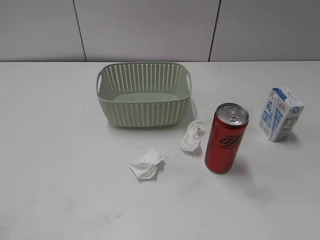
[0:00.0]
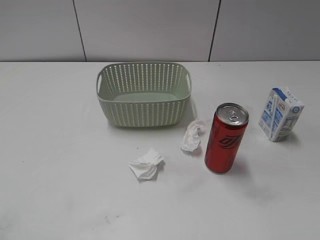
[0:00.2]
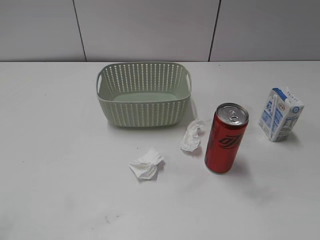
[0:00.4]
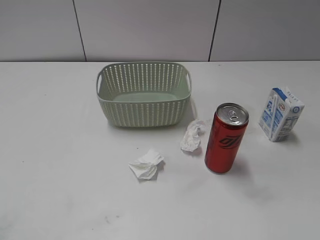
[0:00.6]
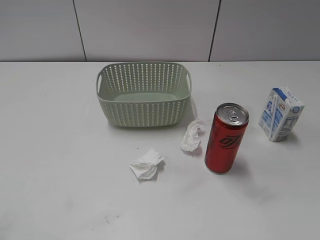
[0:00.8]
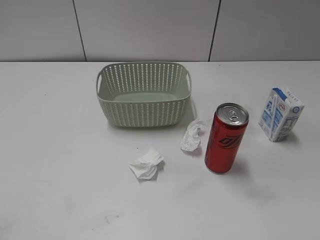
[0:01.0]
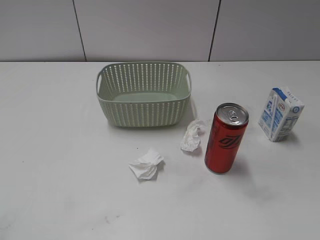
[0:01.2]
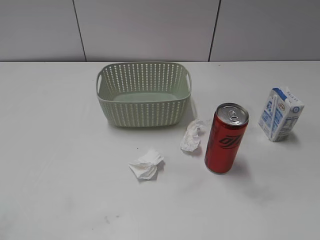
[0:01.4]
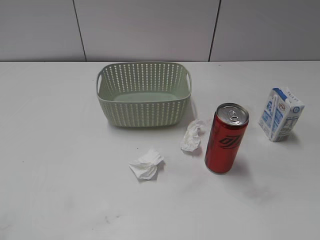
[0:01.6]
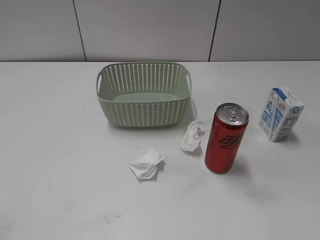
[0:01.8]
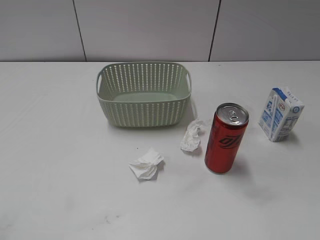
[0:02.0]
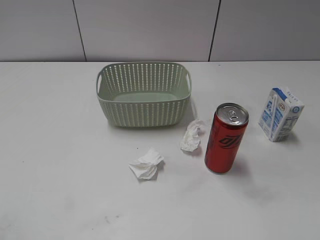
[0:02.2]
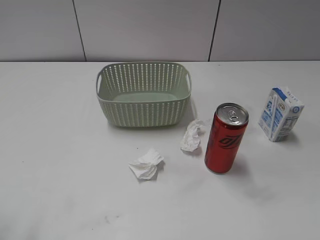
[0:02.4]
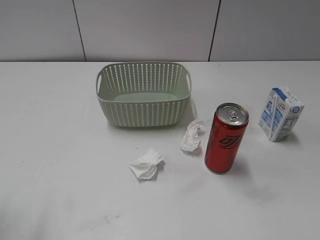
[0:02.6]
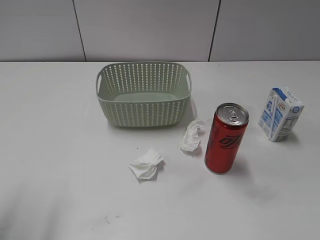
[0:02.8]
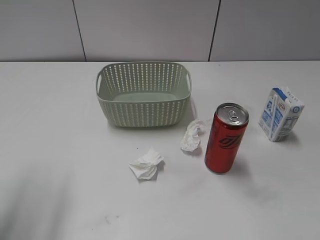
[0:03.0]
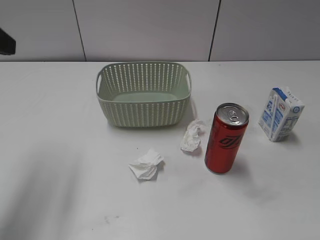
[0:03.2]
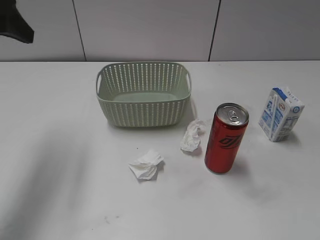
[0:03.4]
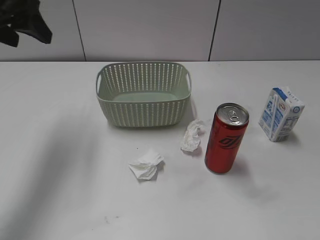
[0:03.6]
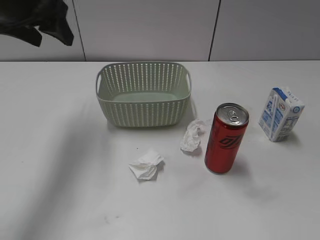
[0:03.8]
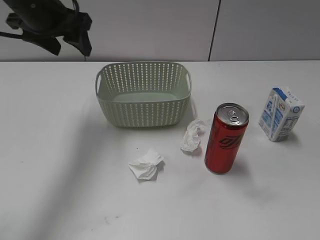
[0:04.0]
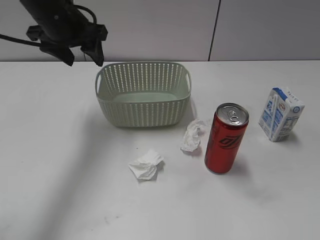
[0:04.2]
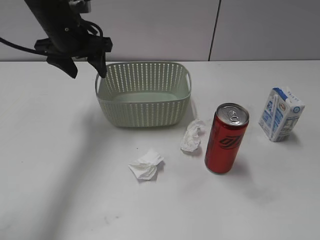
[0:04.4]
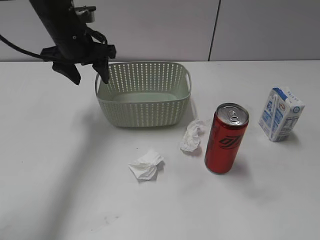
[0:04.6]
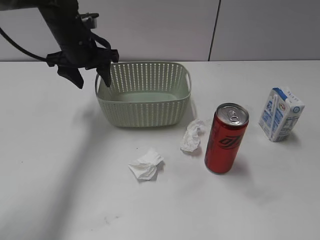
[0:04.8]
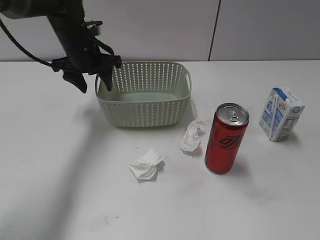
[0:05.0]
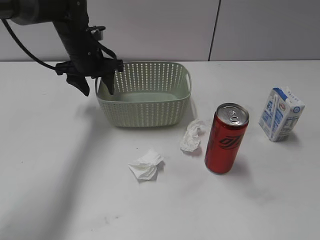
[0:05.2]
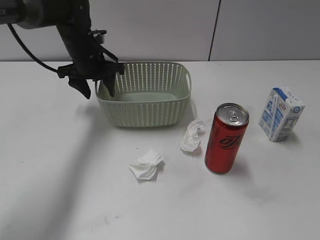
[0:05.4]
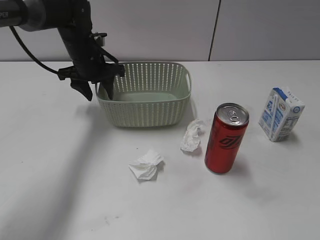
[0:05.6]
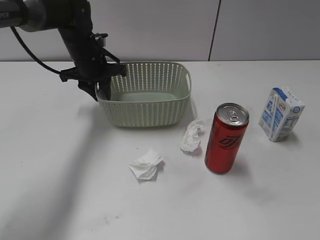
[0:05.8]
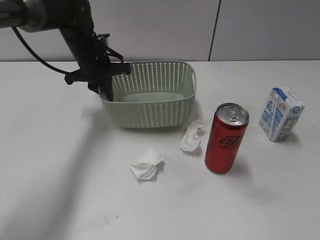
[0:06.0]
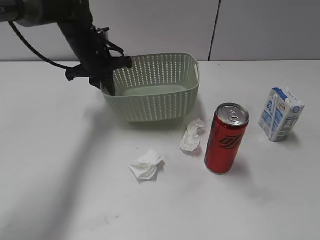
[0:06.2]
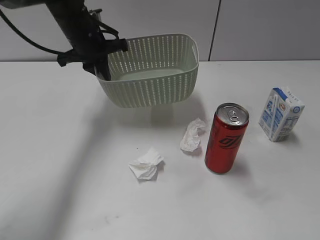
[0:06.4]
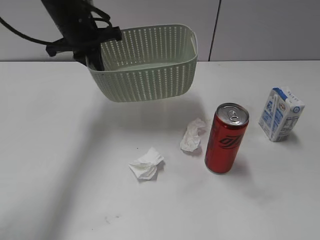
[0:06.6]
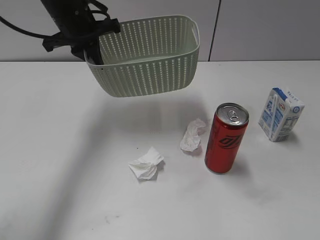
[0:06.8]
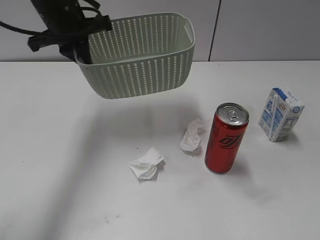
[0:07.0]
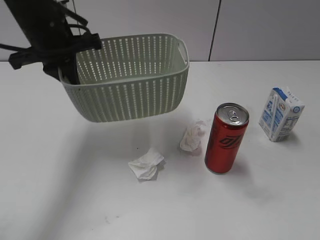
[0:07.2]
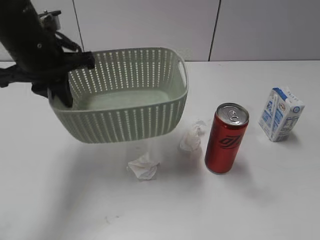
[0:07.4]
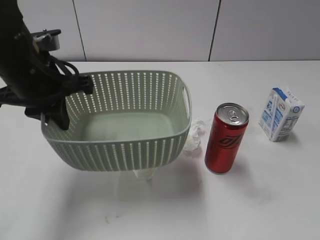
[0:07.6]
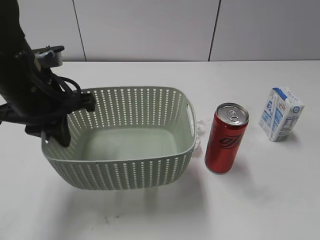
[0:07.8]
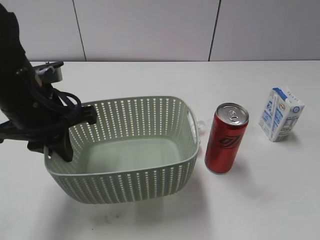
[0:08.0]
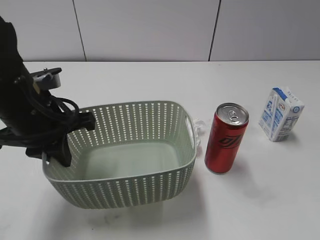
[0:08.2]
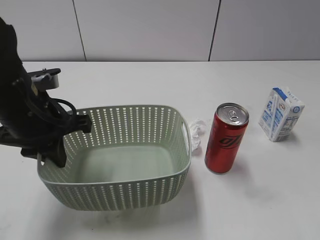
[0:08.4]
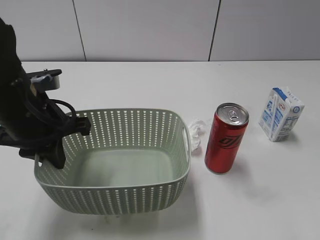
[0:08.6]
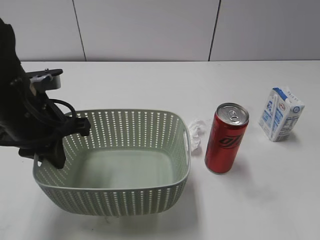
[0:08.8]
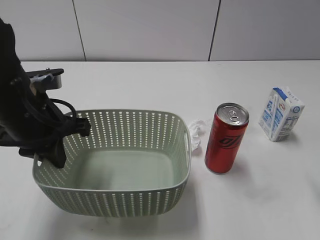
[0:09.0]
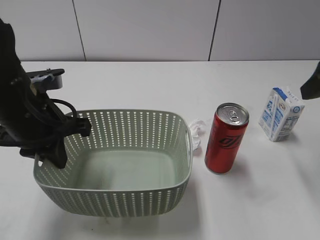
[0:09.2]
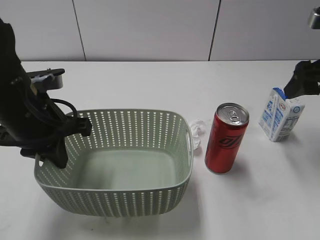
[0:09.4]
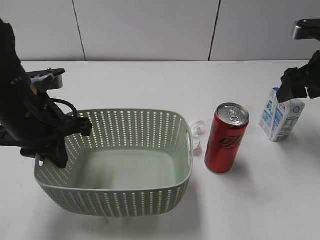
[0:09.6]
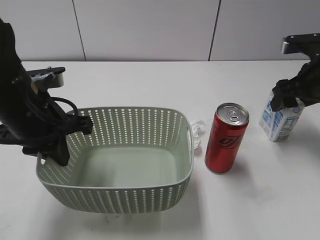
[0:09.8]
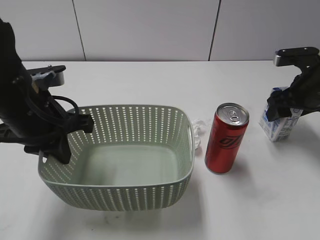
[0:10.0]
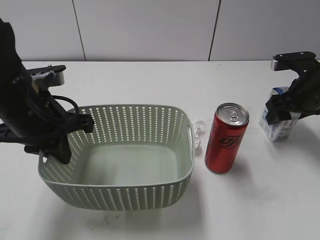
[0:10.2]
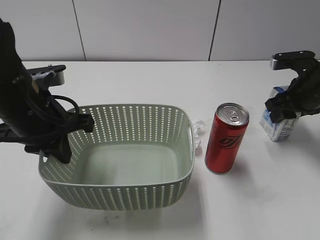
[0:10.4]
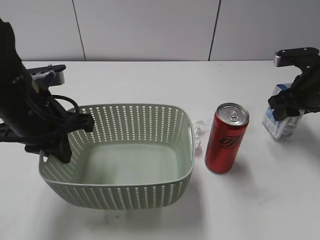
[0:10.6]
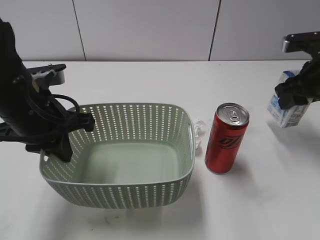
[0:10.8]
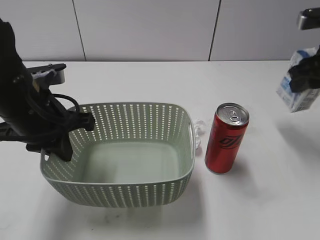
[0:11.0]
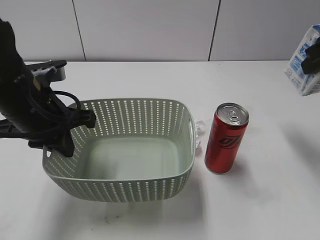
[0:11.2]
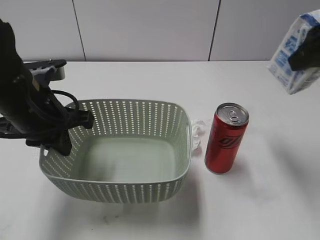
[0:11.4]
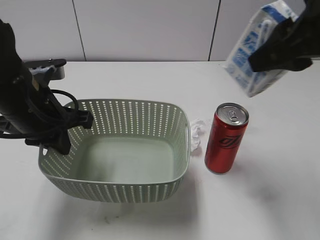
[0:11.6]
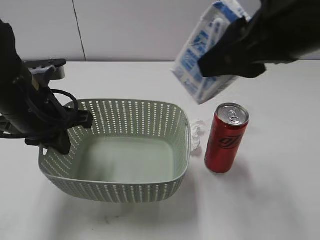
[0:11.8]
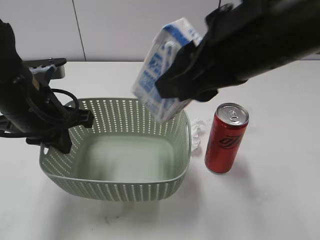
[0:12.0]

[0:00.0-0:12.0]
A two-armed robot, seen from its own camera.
Step, 3.2 to 6.0 s: Grasp the basket with left gripper.
Step, 6.2 to 8.0 s: Lift the basket with left gripper.
Step, 8.2 to 10.4 s: Grasp the milk with right gripper.
1.6 to 3.0 s: The left gripper shifts approximately 20 cm forward.
3.0 to 4.4 s: The left gripper heads forward and to the right, covering roughly 25 cm.
4.4 to 6.0 s: The left gripper is displaced downward by about 10 cm, and closes its fingers.
6.0 to 7.6 s: The left gripper is displaced backward and upward by some 20 cm.
7.6 to 9.0 s: The right gripper heads forward, covering approximately 20 cm, and opens up.
9.0 to 10.4 s: The right gripper is displaced forward and downward by roughly 20 cm, and closes.
10.4 to 12.0 s: The right gripper goes some 30 cm to the left, upward and backward.

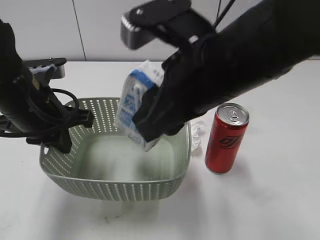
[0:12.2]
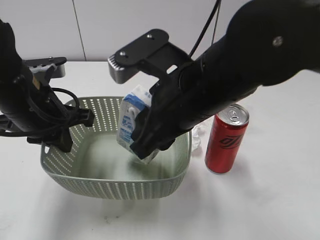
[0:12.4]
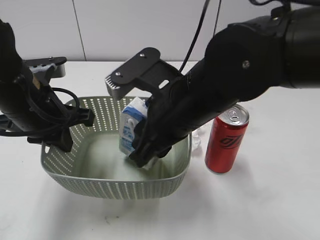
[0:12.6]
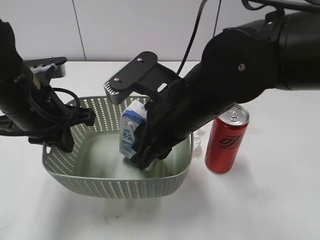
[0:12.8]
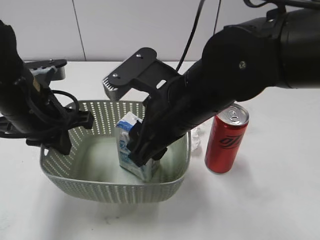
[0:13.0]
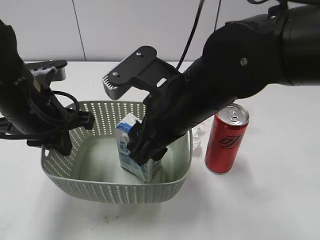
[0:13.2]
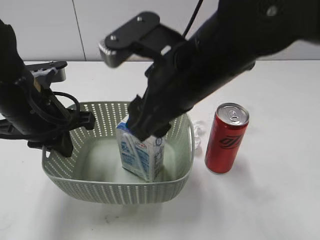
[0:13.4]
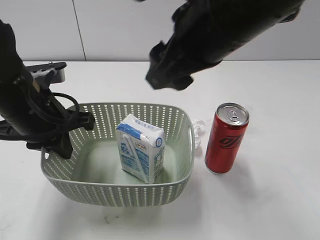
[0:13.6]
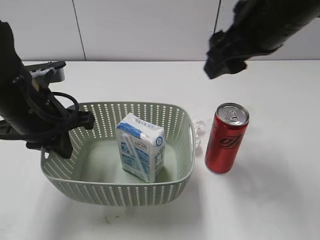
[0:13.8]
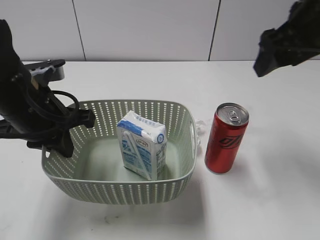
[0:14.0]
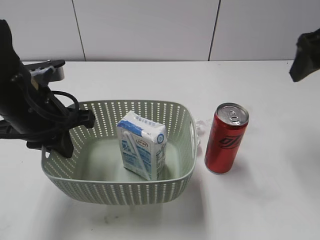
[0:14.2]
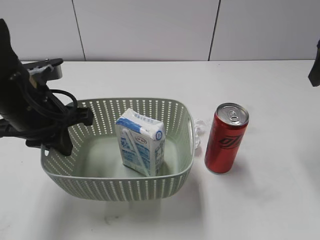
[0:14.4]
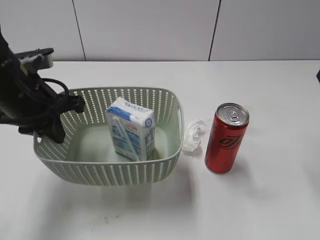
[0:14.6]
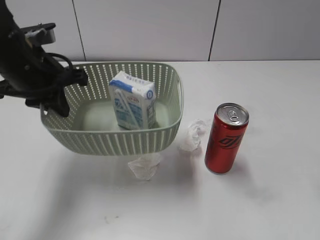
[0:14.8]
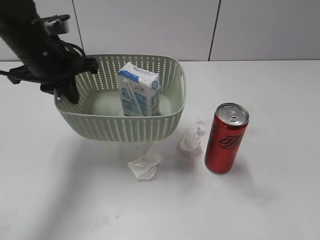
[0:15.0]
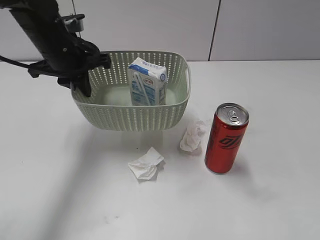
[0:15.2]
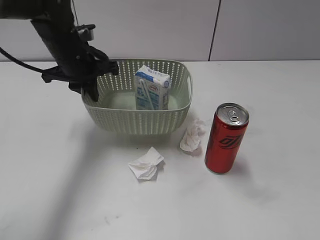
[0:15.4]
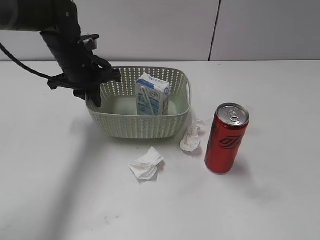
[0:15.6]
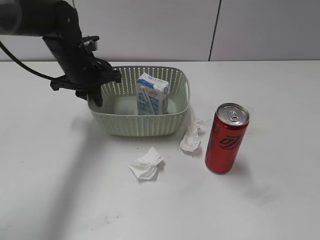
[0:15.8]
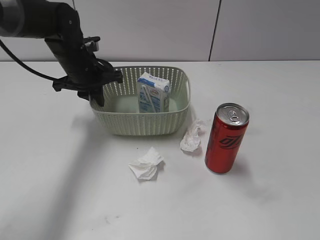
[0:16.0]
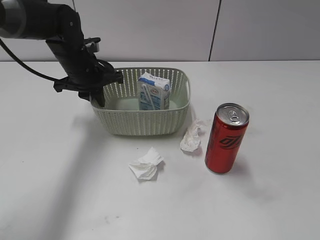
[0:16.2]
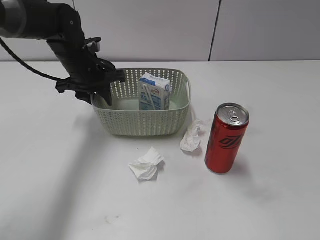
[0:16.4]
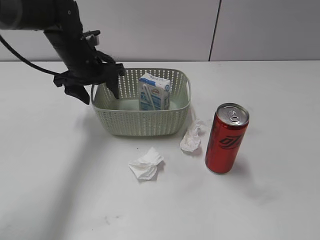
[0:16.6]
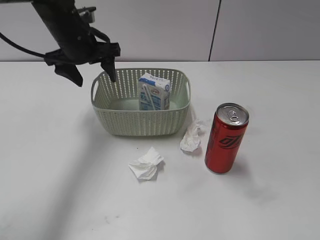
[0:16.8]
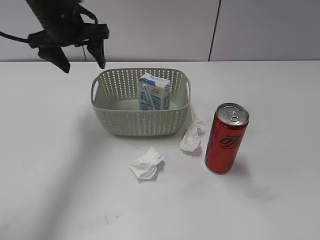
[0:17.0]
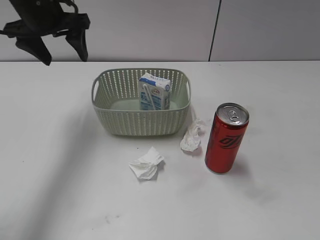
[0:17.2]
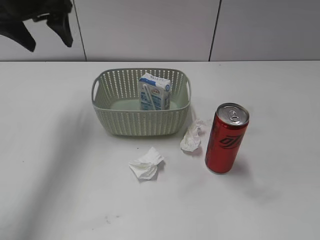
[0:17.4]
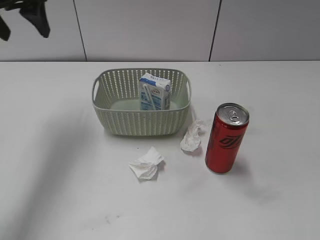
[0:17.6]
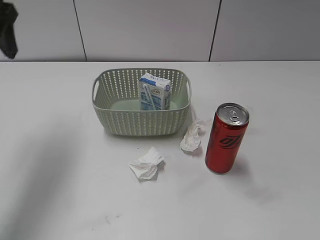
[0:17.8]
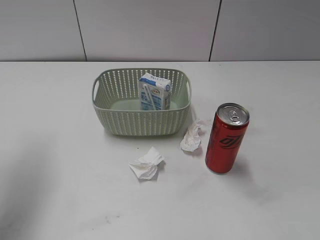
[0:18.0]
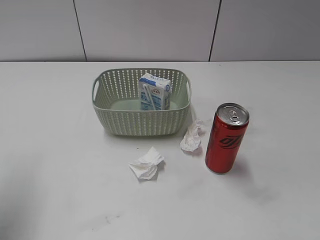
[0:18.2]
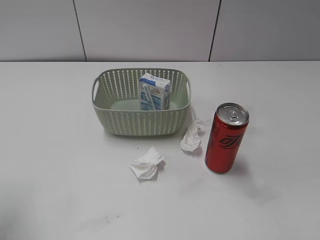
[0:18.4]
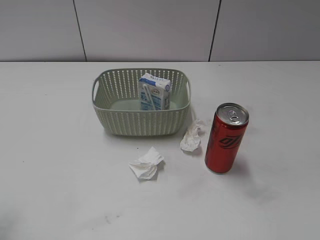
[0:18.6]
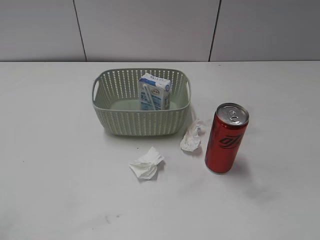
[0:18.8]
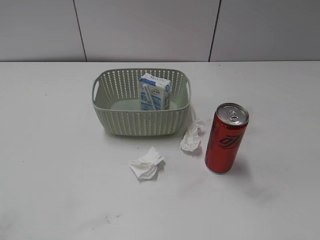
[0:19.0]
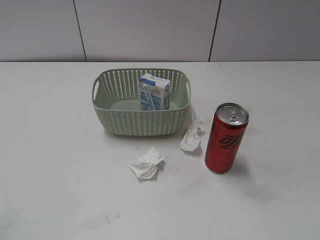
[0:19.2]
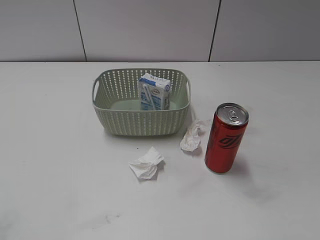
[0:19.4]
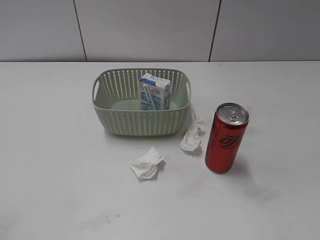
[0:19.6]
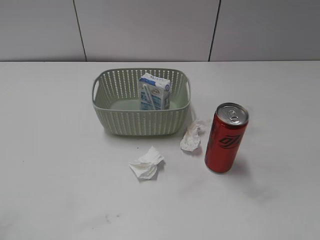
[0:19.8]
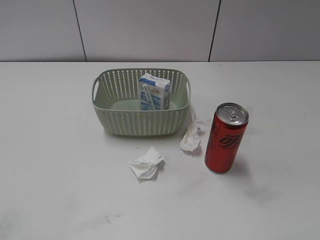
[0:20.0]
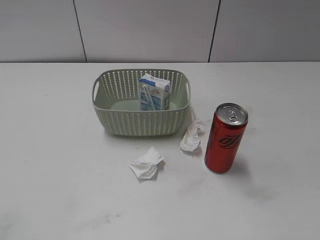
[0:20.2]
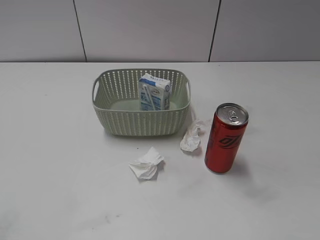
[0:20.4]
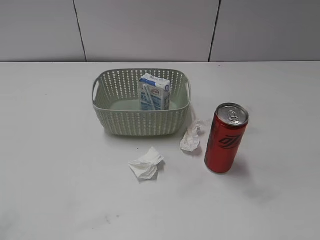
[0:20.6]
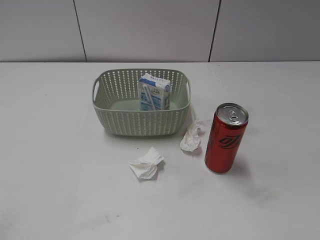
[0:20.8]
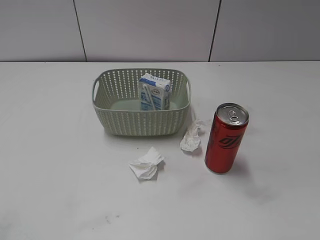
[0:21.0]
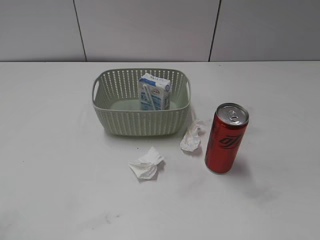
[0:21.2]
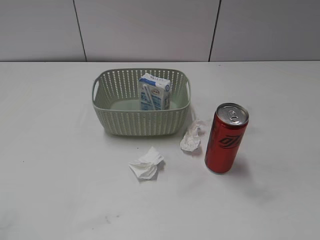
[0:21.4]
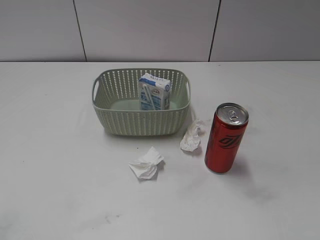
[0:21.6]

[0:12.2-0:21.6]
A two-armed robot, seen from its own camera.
Step, 13.6 to 16.8 s: Place the basket on the table with left gripper.
12.2 to 13.8 s: The right gripper is displaced to the right and forward by approximately 10 cm, and opens its fingers.
13.8 to 15.4 s: The right gripper is displaced backward and to the right by about 25 cm, while the left gripper shifts approximately 15 cm forward.
15.4 to 17.0 s: The left gripper travels upward by approximately 5 cm, and opens up. The right gripper moves backward, roughly 10 cm.
17.0 to 18.4 s: The left gripper shifts about 30 cm backward and to the left.

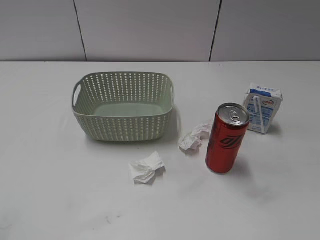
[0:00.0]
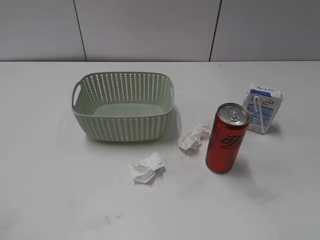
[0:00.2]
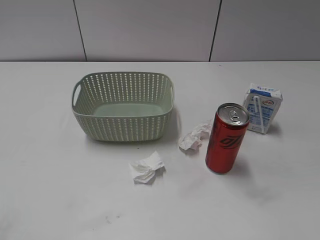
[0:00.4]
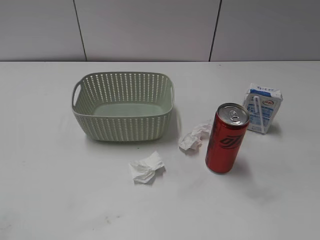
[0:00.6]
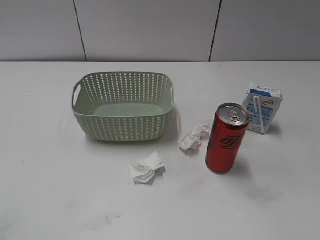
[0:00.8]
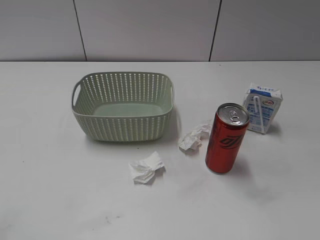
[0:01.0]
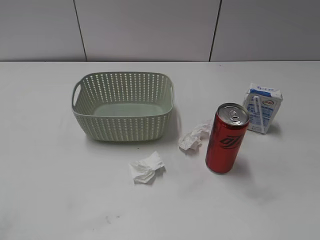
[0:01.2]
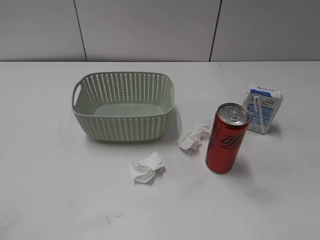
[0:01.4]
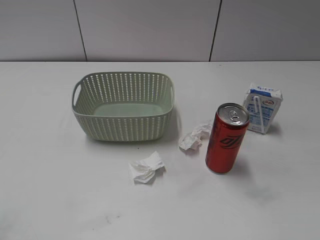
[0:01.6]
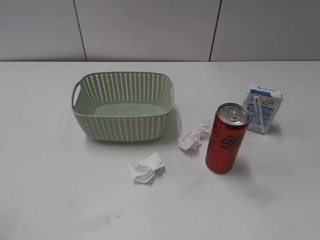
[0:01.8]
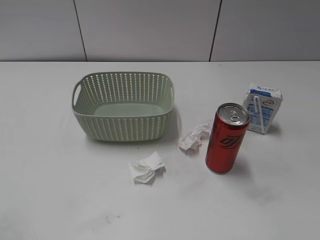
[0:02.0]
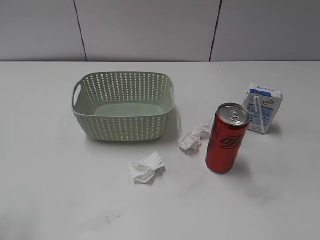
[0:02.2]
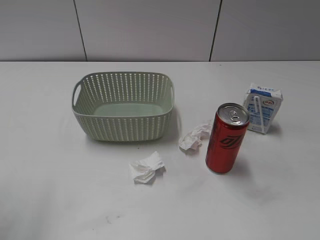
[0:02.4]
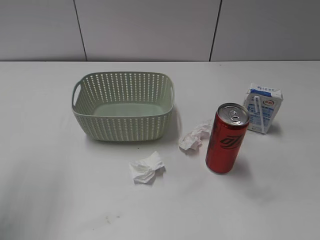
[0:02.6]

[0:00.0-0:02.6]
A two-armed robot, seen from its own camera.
1.2 to 2.6 s: The left gripper travels forward and upward by approximately 25 cm.
